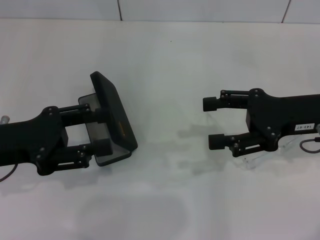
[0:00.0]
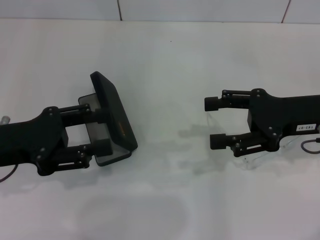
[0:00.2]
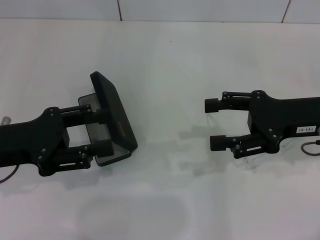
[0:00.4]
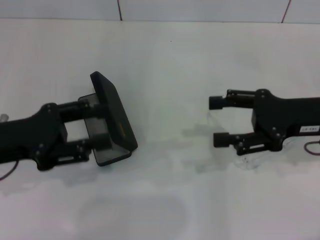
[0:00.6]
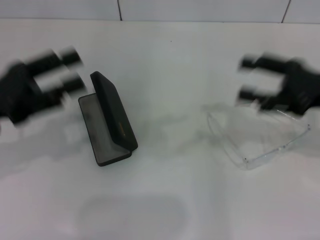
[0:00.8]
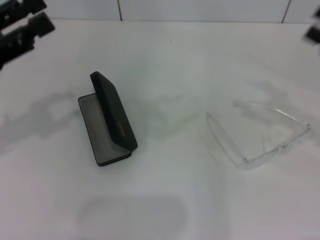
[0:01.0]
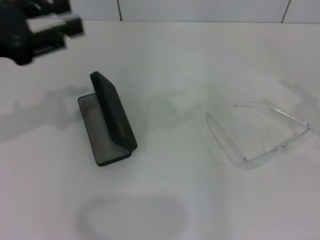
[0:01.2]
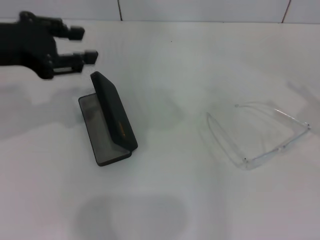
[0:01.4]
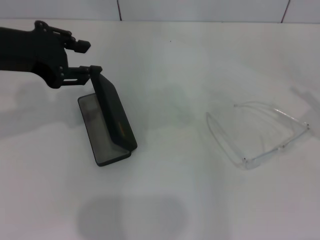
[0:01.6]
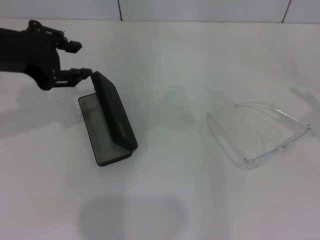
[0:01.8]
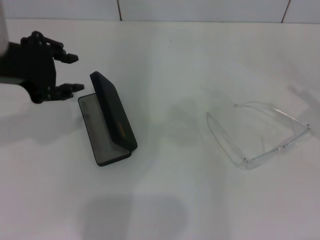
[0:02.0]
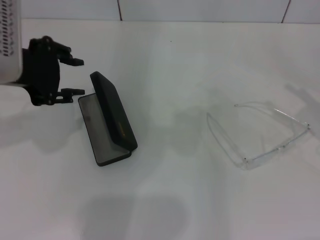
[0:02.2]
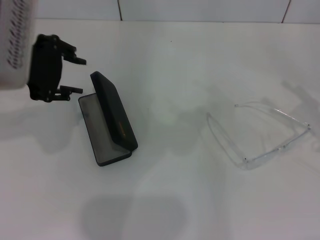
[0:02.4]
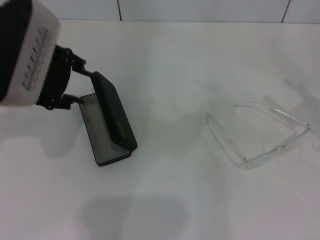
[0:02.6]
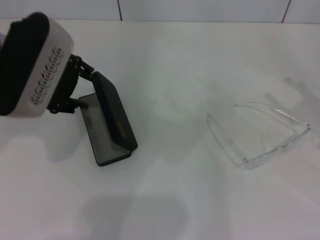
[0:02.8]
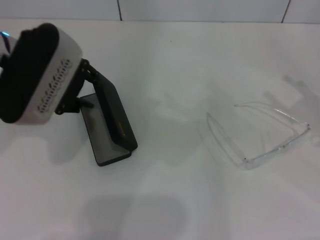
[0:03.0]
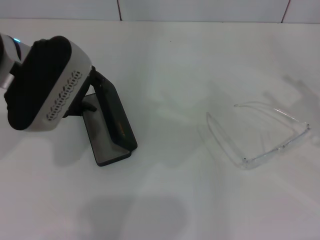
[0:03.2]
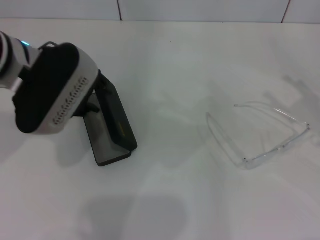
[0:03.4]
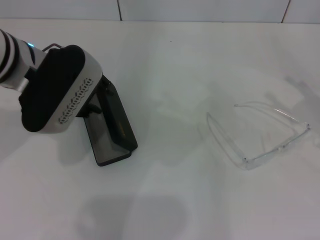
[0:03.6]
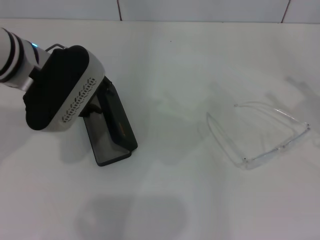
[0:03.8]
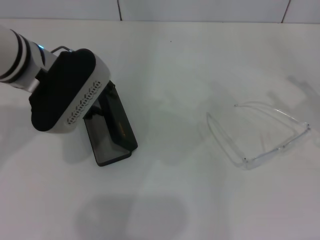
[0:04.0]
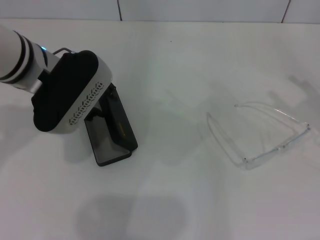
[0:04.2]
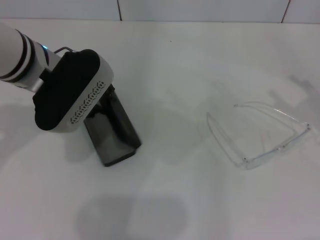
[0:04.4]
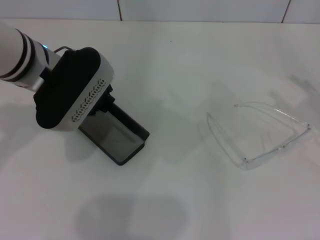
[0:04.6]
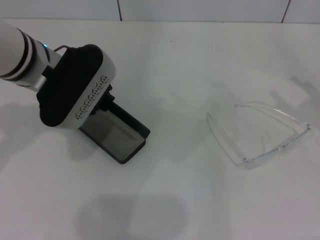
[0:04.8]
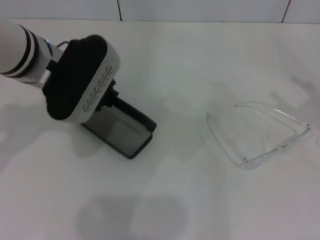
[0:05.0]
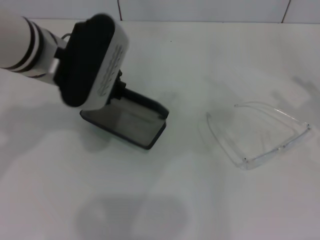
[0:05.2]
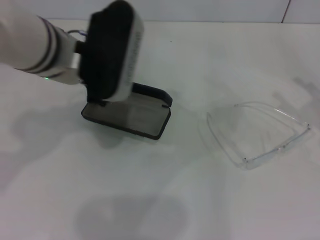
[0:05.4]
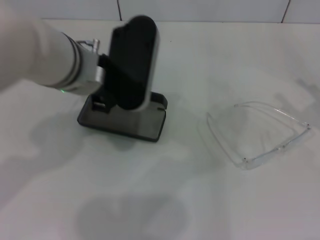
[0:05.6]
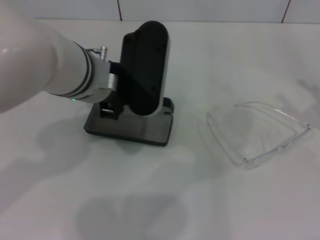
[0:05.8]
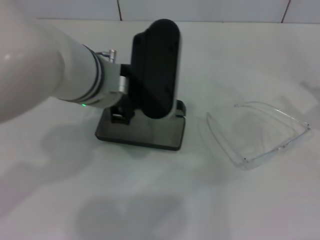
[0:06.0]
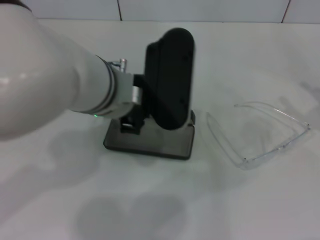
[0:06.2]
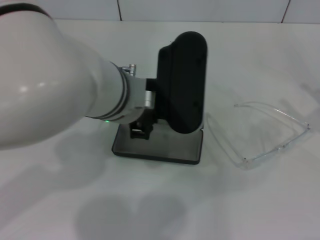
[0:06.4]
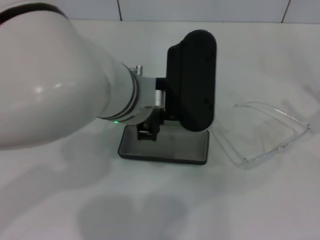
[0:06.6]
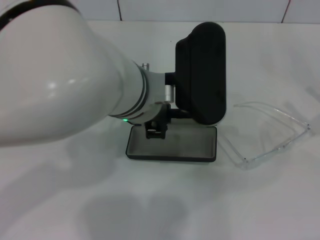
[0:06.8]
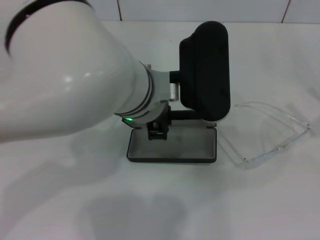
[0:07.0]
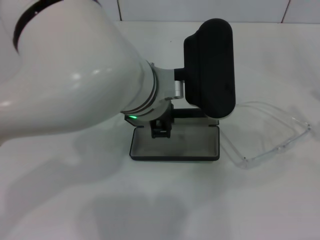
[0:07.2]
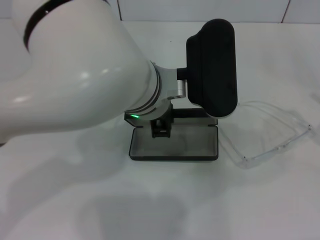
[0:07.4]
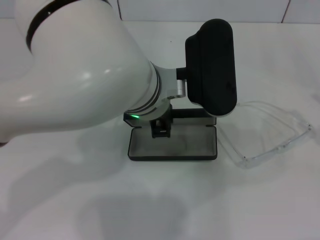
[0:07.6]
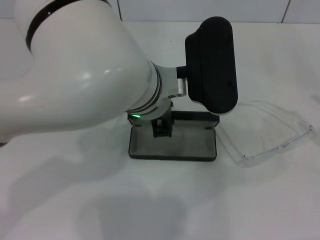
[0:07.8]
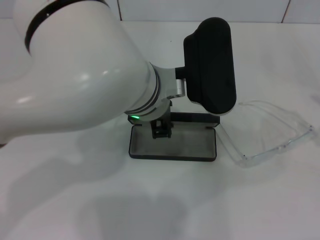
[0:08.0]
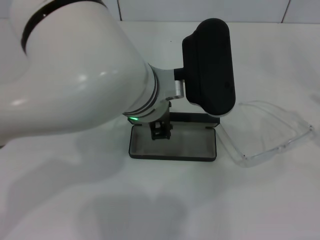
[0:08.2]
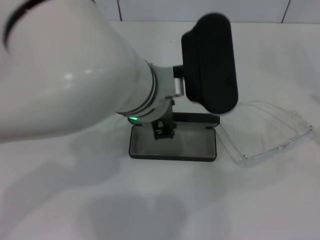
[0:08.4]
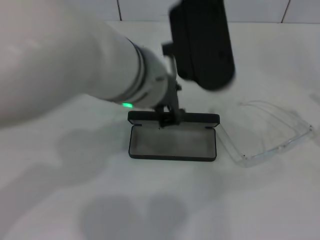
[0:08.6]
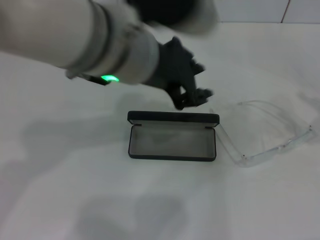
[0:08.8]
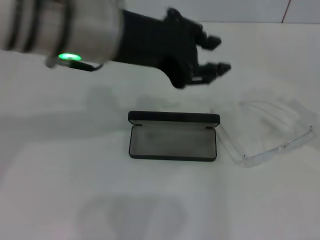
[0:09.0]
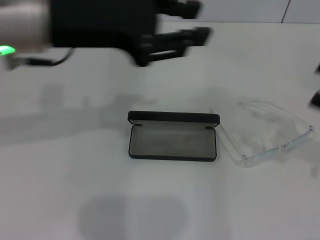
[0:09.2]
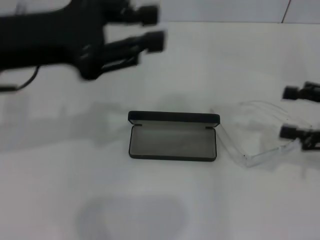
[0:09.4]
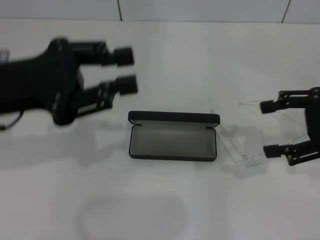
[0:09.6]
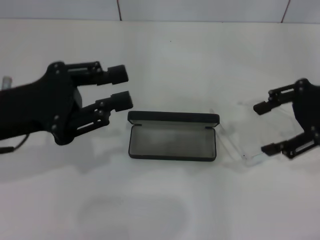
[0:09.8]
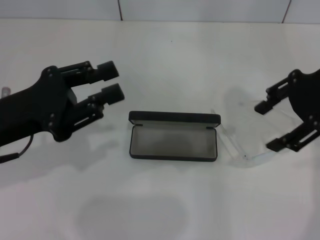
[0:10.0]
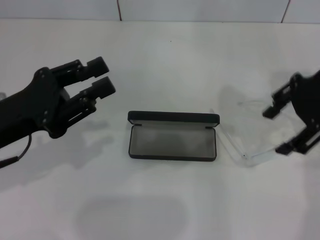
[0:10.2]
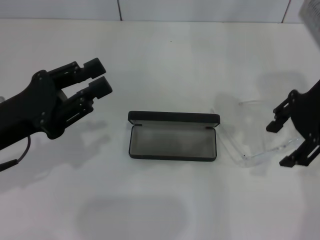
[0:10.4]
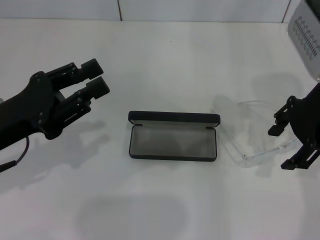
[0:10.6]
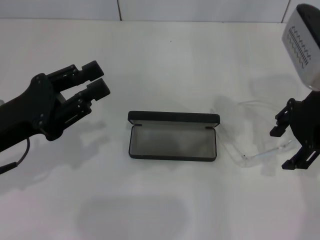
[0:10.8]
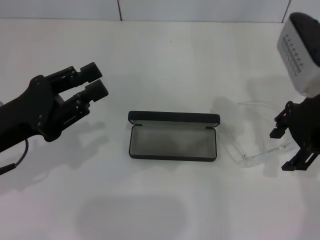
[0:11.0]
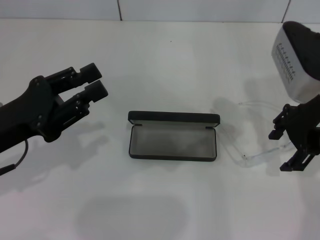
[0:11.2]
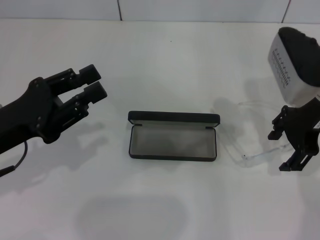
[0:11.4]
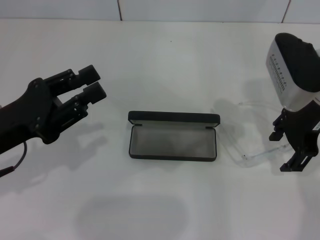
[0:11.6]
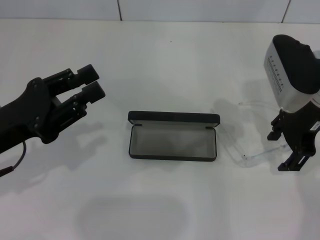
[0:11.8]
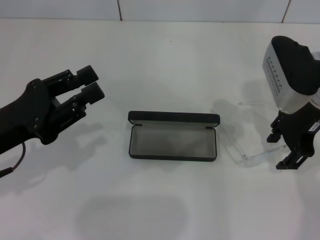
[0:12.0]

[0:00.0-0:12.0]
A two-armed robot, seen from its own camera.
Step, 0:00.0 to 0:04.6: Grab the glasses case with your left hand.
Step, 0:05.0 to 0:08.0: Place the glasses case in the center of the table with your left hand.
0:00.0 to 0:01.6: The right gripper travels to the right and backward by roughly 15 cm. The left gripper is displaced upward and forward by about 15 cm.
0:01.6 to 0:03.0: The left gripper changes place by some 5 cm.
0:03.0 to 0:04.4: The grippers stay close to where they were, moving slightly.
0:04.4 to 0:06.0: The left gripper heads to the right, covering roughly 10 cm.
0:06.0 to 0:07.6: The left gripper travels to the right by roughly 5 cm.
0:07.6 to 0:09.0: The left gripper heads upward and to the left, covering approximately 10 cm.
0:09.0 to 0:10.4: The right gripper is displaced to the left, upward and forward by approximately 20 cm. Meanwhile the left gripper moves to the left and downward, approximately 20 cm.
0:10.4 to 0:12.0: The right gripper goes about 5 cm downward.

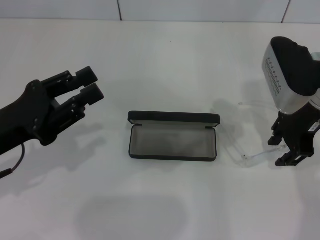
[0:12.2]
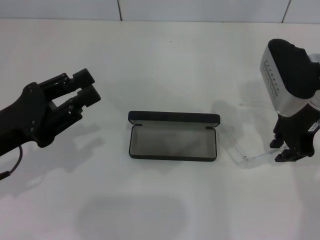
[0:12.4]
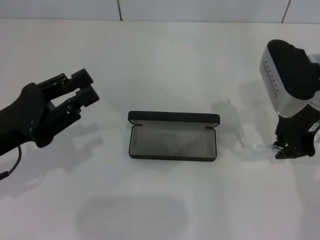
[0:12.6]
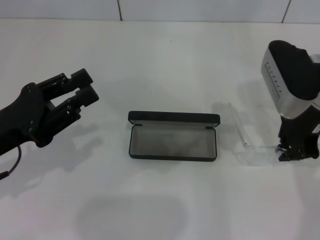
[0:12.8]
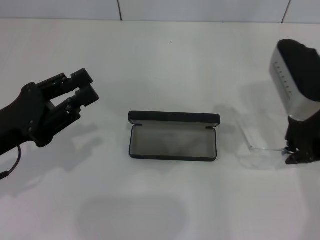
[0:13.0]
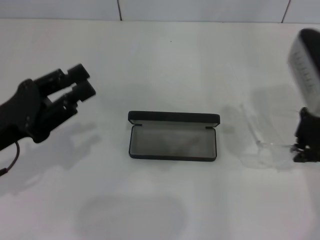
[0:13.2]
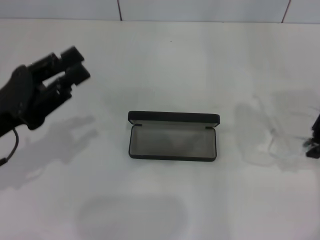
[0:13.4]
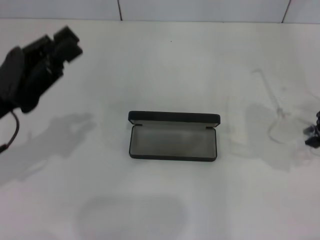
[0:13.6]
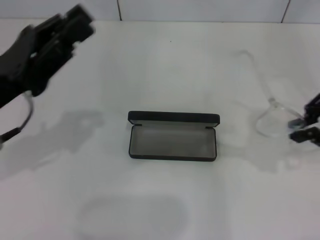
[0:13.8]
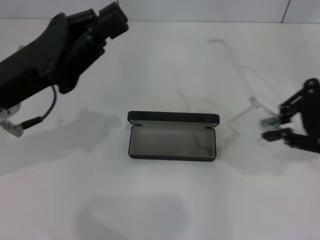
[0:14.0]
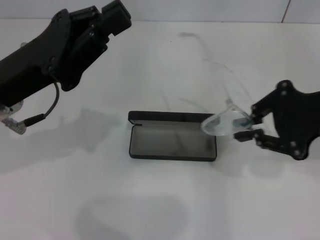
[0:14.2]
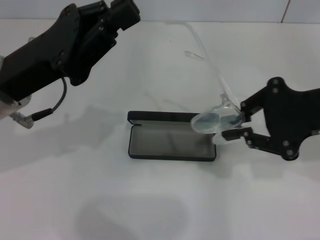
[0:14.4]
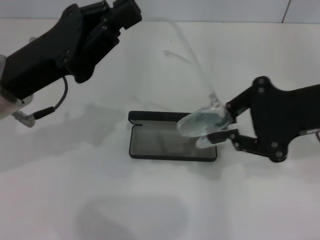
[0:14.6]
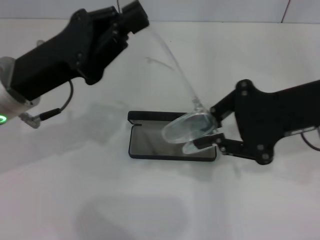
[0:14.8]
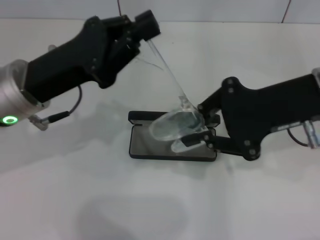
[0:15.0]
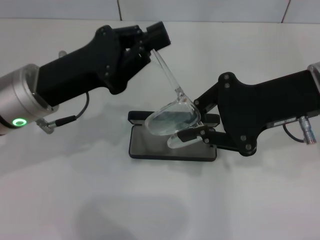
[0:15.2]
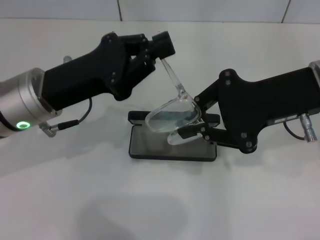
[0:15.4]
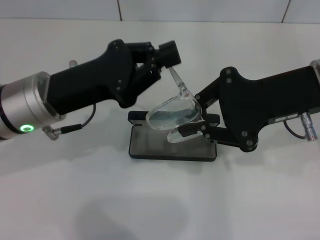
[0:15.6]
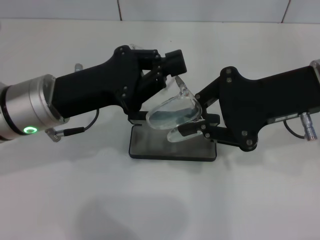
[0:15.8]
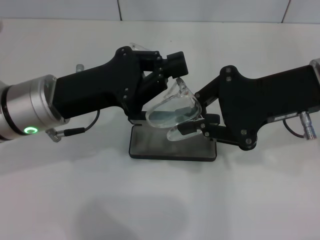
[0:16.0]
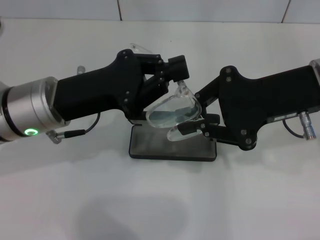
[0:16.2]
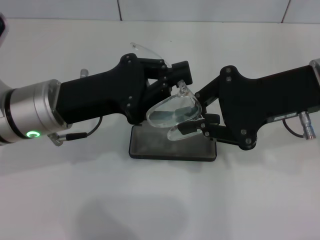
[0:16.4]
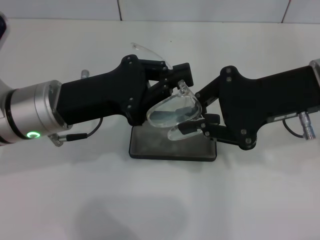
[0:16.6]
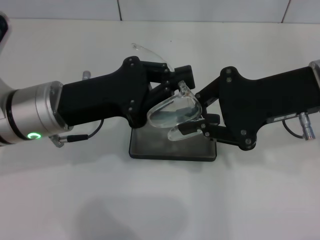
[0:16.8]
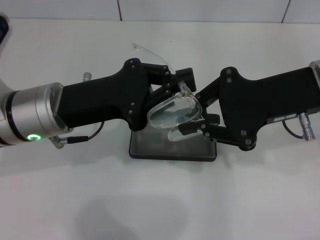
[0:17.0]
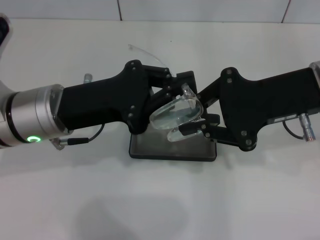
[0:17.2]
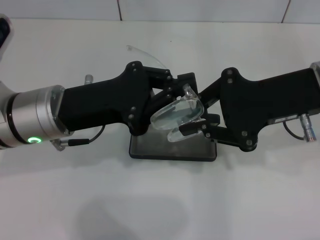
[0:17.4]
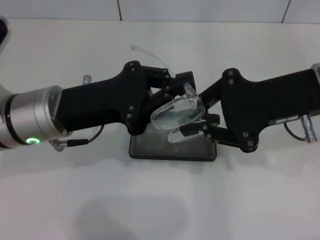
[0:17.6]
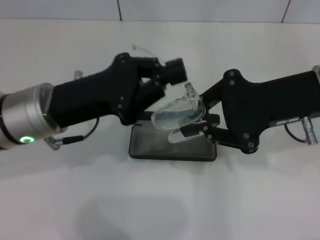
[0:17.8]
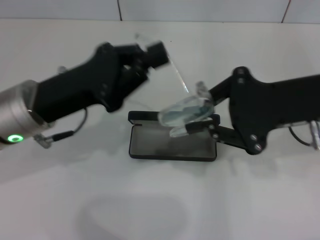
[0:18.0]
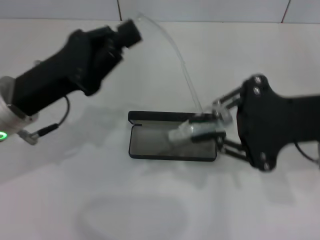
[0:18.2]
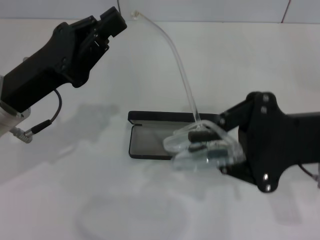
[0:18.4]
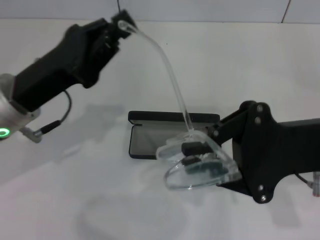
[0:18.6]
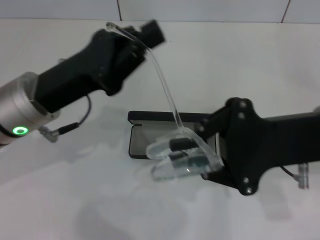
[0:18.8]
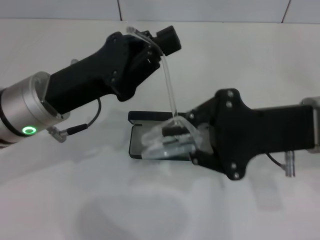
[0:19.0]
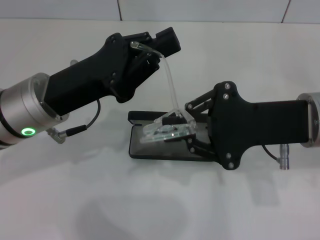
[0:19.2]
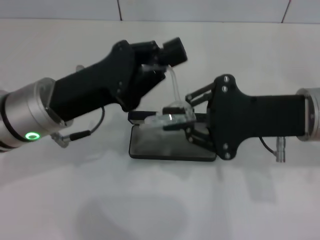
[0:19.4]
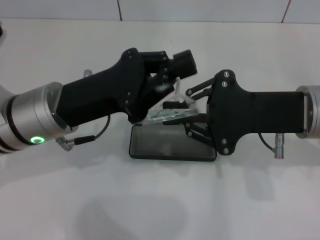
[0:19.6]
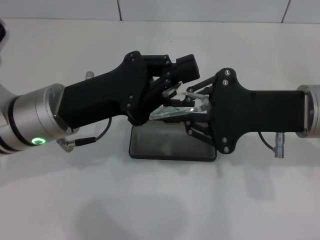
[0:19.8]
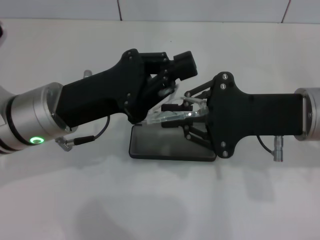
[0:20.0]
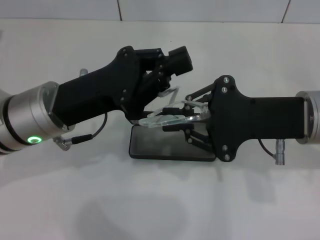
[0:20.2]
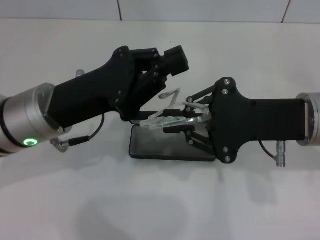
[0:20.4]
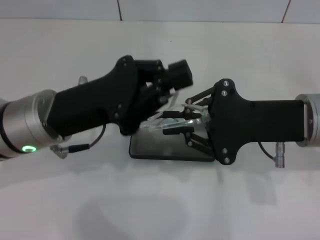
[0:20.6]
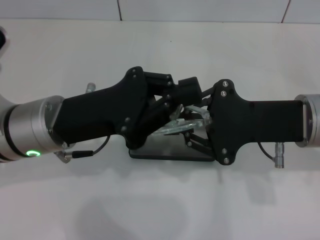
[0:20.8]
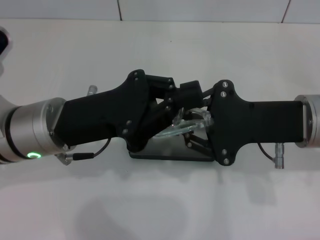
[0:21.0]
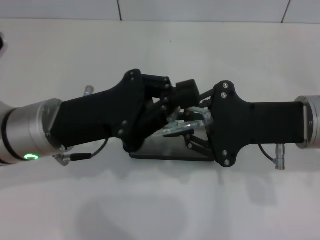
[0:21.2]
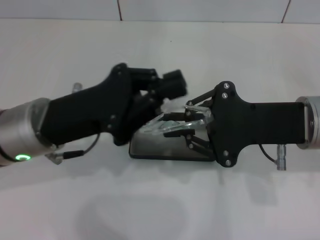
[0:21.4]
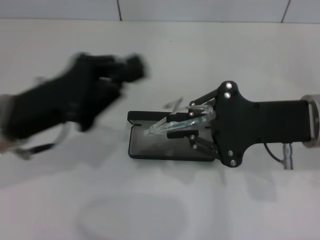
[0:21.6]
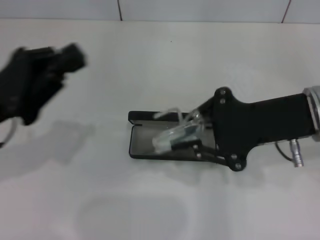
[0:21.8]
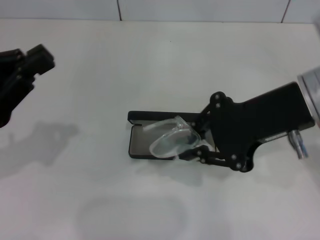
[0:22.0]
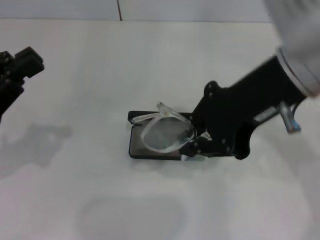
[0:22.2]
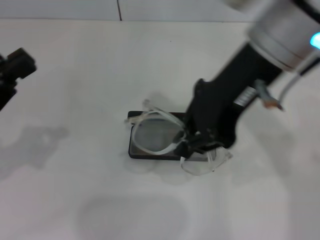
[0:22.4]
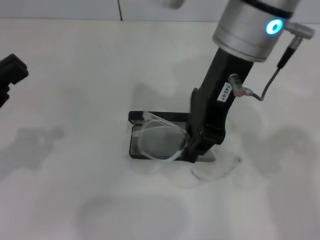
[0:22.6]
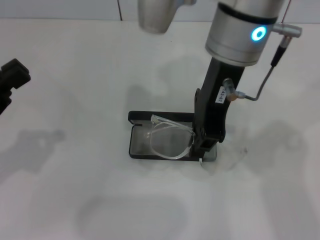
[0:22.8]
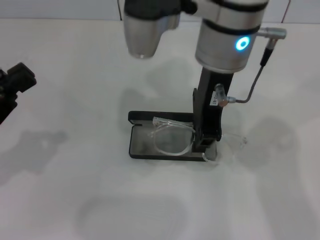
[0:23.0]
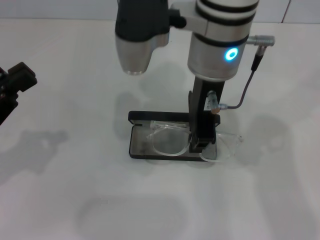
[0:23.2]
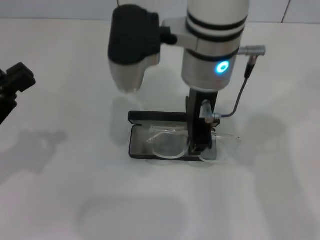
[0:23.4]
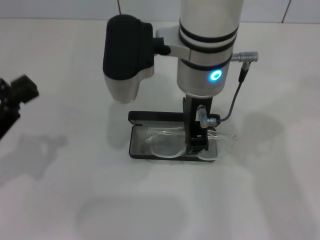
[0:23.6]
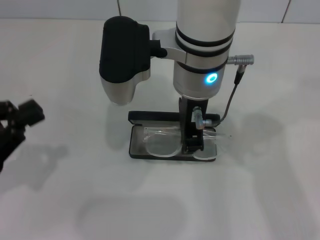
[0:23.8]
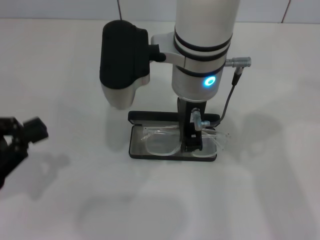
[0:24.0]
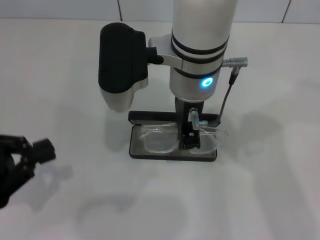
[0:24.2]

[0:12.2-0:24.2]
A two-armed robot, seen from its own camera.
Step, 0:12.8 to 0:21.4: Fold the frame with your left hand.
0:12.2 to 0:13.8: The right gripper shifts some 15 cm upward, backward and to the right, and closes up.
0:13.8 to 0:15.2: The right gripper goes approximately 10 cm to the left; the left gripper goes some 5 cm to the right.
0:21.2 to 0:22.6: The right gripper goes some 20 cm upward, to the left and forward. The left gripper goes roughly 15 cm to the left.
0:22.6 to 0:24.2: The right gripper moves downward and to the left, some 10 cm.
